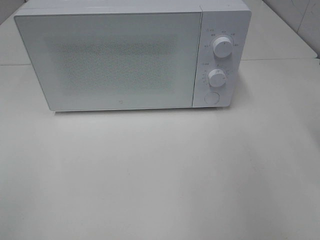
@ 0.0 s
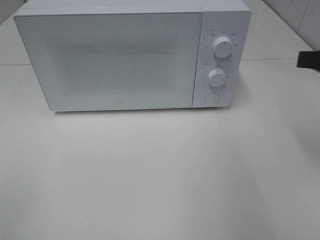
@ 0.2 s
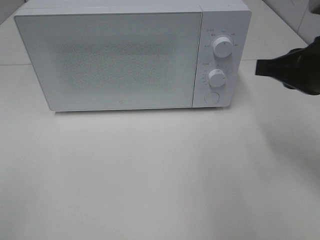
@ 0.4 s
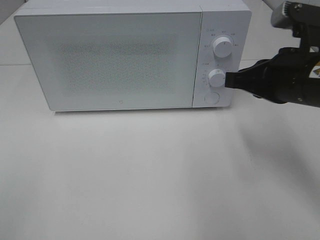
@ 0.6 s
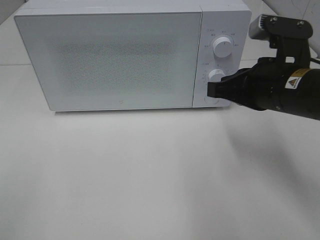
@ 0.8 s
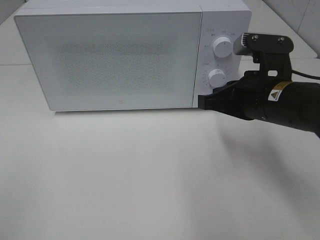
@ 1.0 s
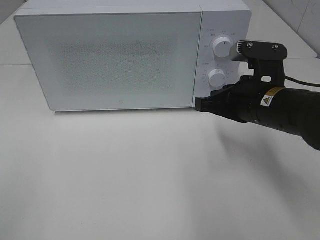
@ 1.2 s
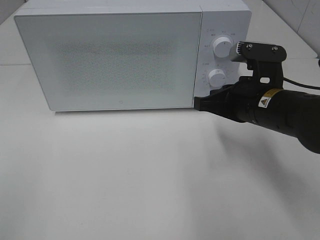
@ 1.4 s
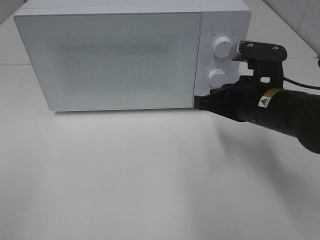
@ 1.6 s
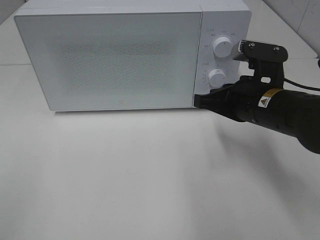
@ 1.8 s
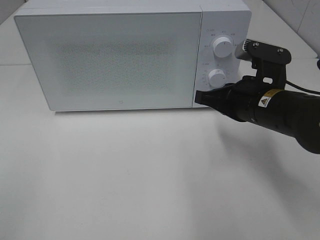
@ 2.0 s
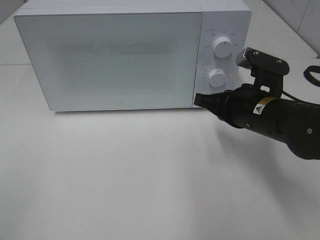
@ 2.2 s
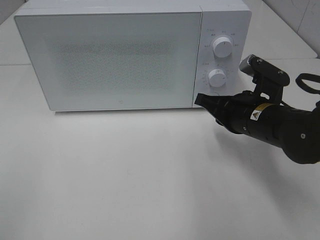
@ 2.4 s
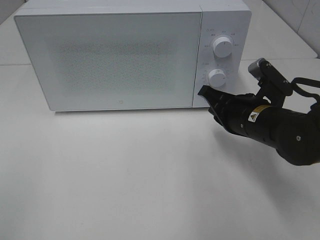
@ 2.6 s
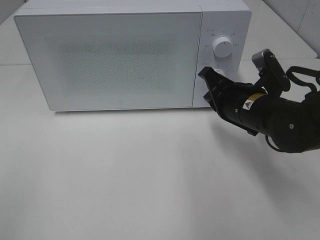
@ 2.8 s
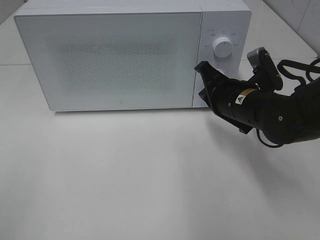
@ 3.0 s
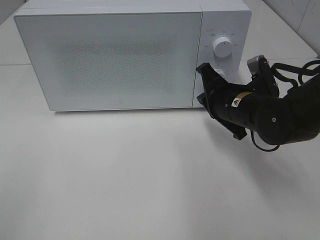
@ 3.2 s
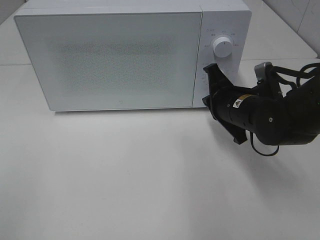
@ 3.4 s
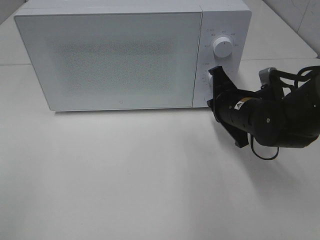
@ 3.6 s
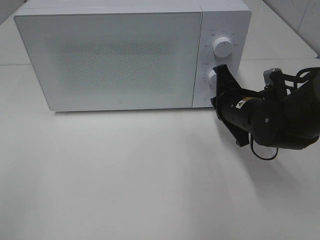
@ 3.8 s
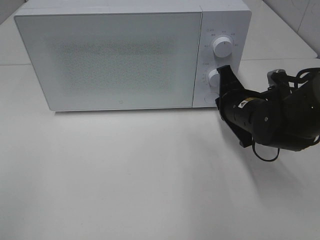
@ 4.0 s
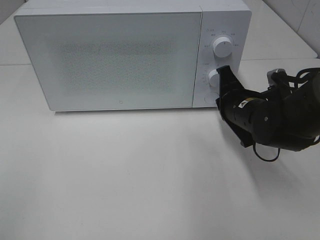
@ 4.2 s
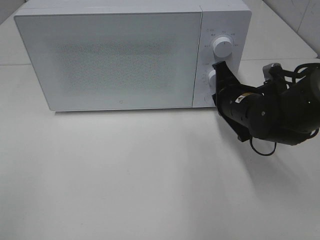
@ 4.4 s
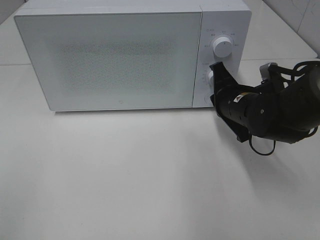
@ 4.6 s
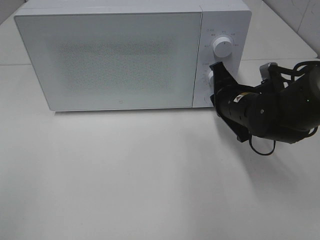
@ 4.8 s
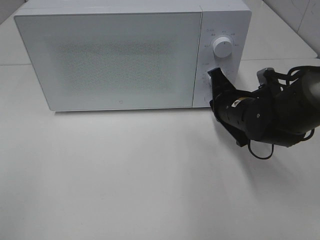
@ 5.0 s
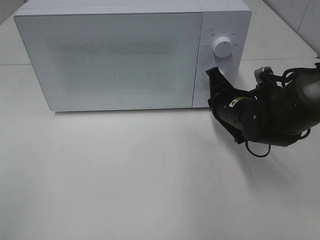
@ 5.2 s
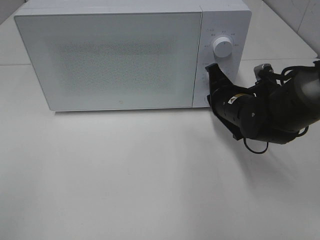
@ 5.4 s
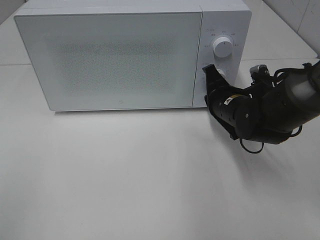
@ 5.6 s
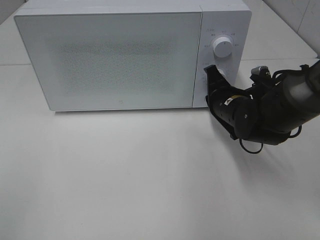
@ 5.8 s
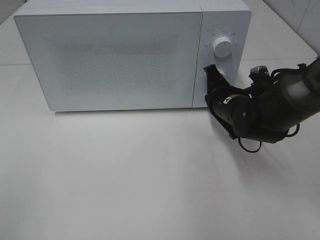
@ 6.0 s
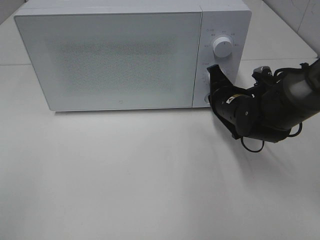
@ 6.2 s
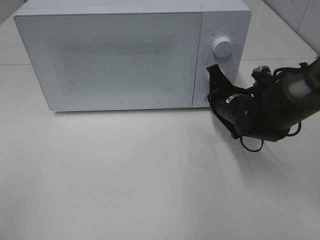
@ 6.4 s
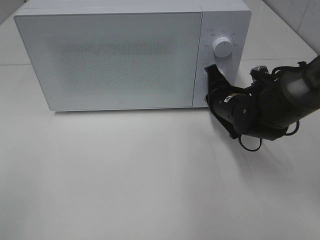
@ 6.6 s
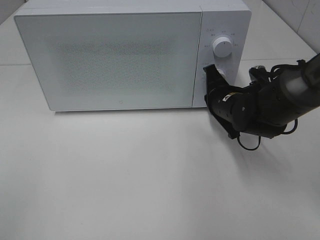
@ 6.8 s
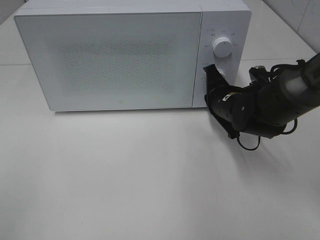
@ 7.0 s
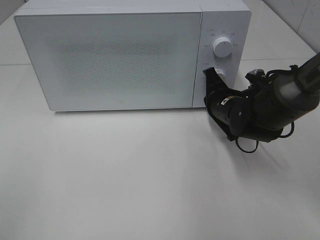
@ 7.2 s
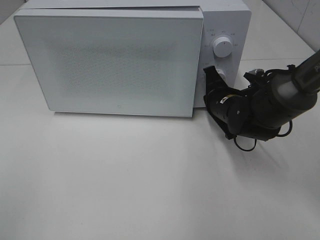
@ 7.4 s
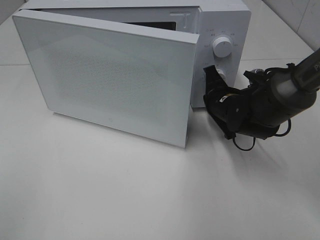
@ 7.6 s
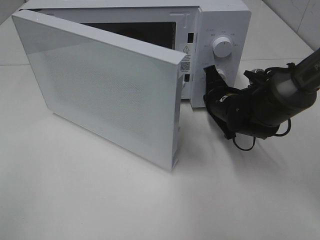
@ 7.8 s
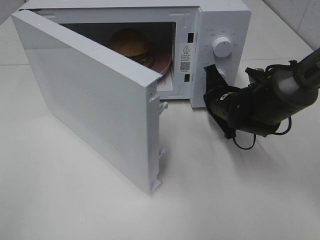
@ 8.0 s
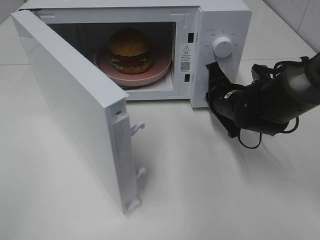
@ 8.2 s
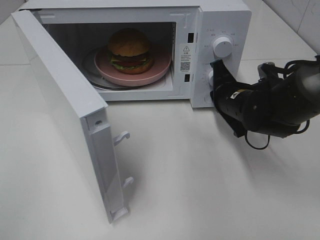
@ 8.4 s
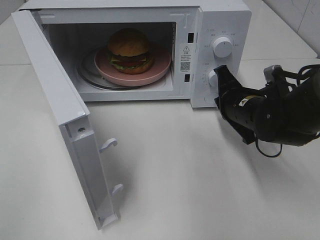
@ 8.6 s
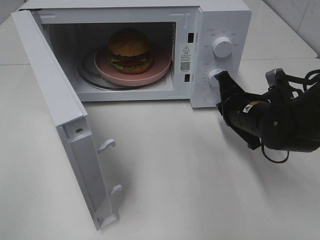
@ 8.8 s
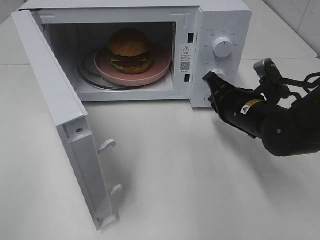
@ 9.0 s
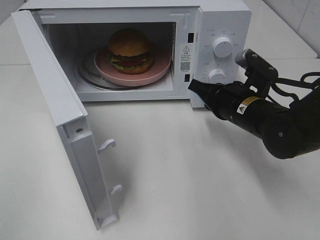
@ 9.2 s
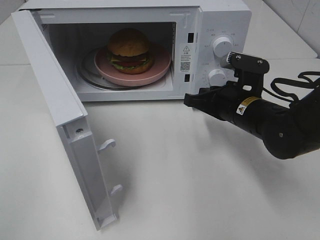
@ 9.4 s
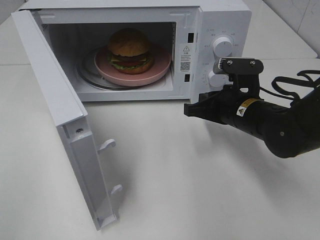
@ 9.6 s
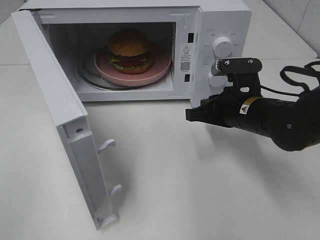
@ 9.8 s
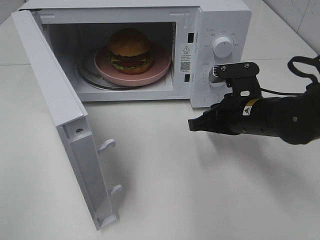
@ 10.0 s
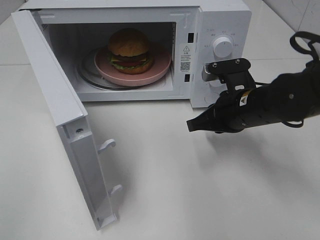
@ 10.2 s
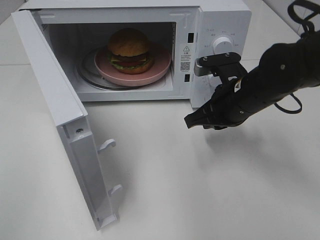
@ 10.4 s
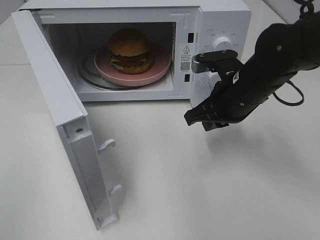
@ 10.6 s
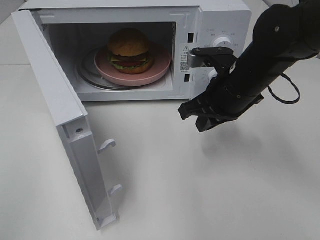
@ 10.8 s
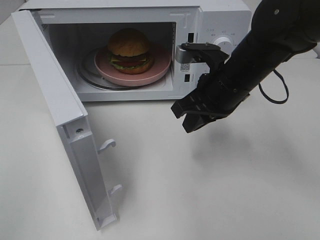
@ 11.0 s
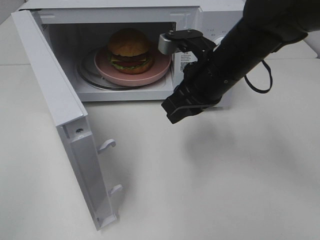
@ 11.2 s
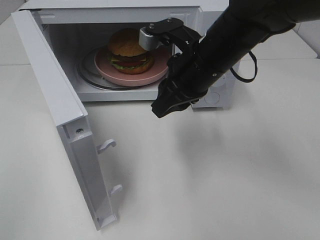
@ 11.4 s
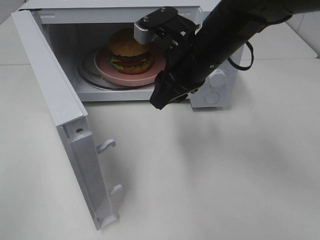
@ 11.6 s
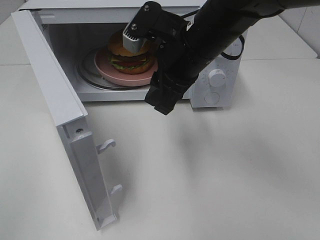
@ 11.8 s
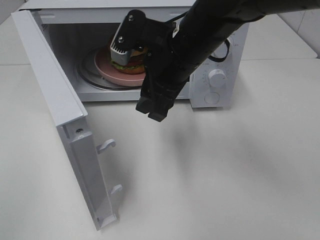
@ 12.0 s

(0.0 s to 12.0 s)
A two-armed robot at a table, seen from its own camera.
Task of the whole recording: Heat the burger.
Step, 0.0 s - 8.4 s: Right hand: press the switch.
0.0 s - 1.6 s: The right gripper shifts about 15 cm to the left and downward.
4.4 s - 7.6 s: There are only small adjustments of the grippers.
7.6 s - 9.0 s: The right gripper moves backward, roughly 5 cm.
10.4 s - 12.0 s: The right gripper goes some 15 cm to the left and upward, and opens up.

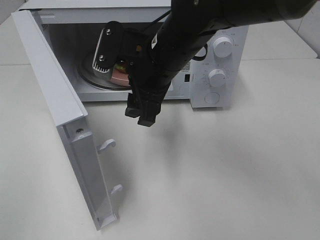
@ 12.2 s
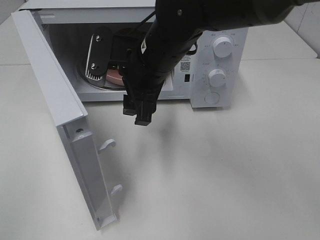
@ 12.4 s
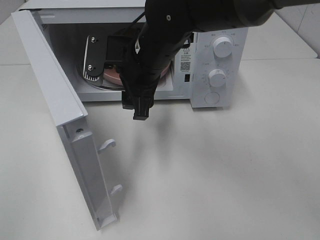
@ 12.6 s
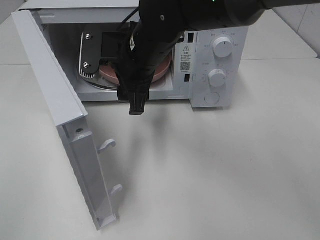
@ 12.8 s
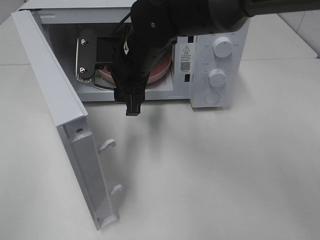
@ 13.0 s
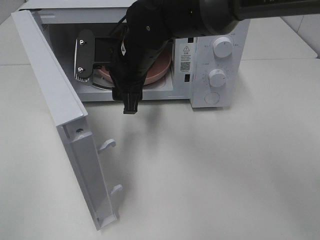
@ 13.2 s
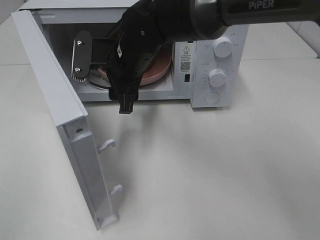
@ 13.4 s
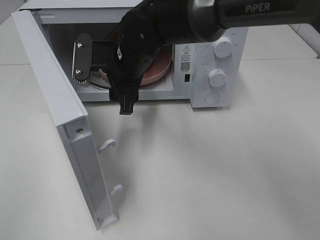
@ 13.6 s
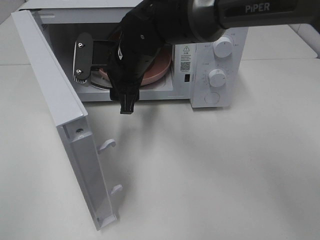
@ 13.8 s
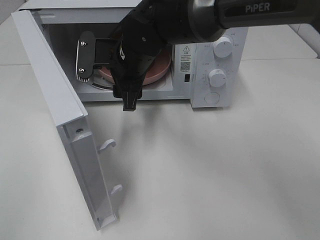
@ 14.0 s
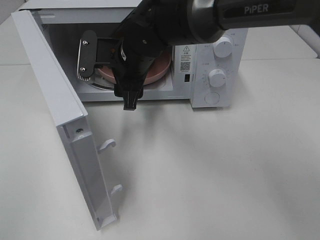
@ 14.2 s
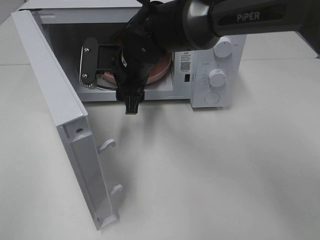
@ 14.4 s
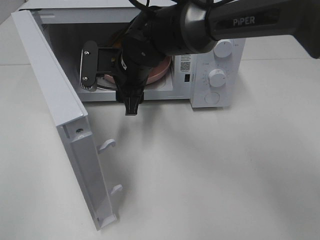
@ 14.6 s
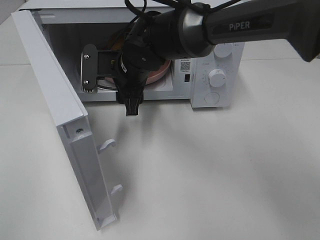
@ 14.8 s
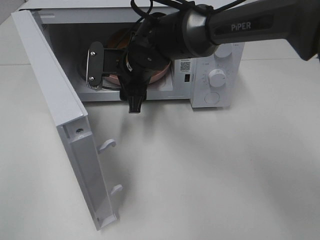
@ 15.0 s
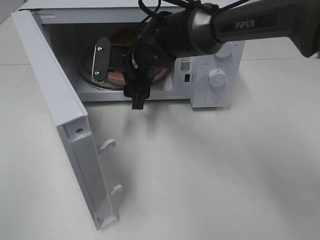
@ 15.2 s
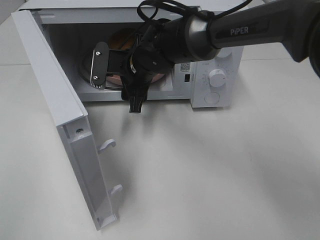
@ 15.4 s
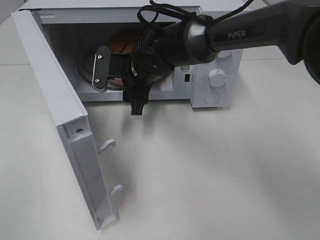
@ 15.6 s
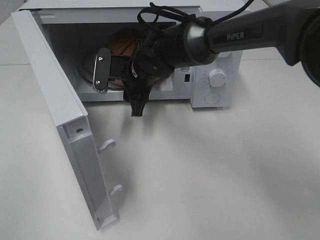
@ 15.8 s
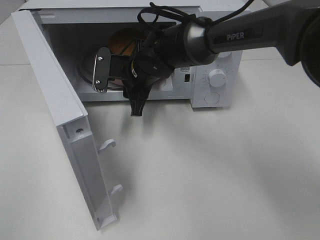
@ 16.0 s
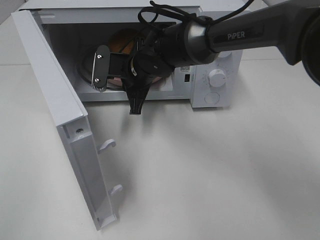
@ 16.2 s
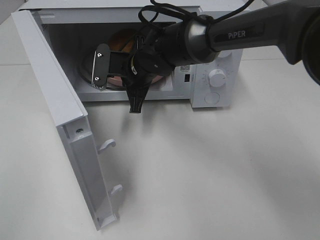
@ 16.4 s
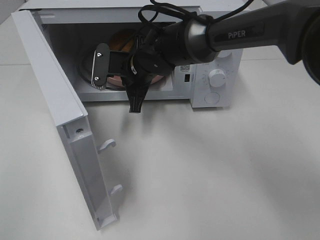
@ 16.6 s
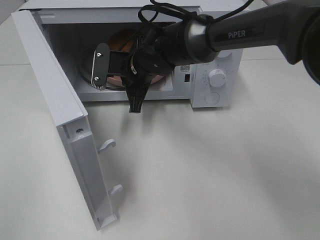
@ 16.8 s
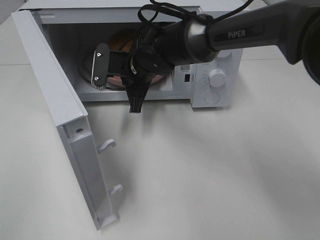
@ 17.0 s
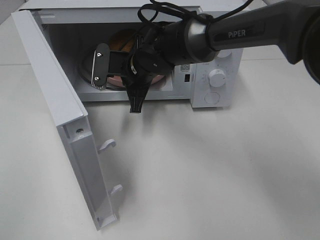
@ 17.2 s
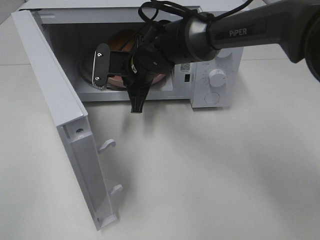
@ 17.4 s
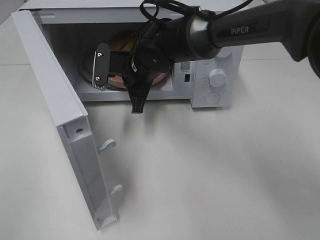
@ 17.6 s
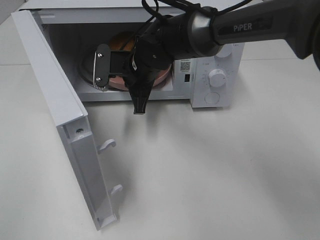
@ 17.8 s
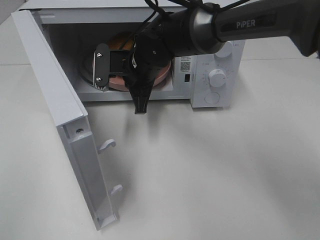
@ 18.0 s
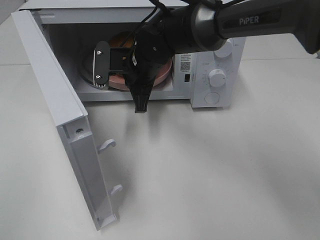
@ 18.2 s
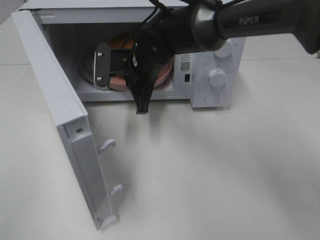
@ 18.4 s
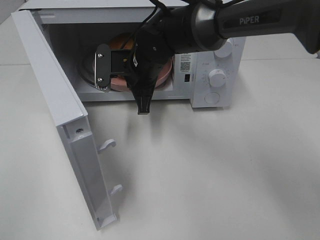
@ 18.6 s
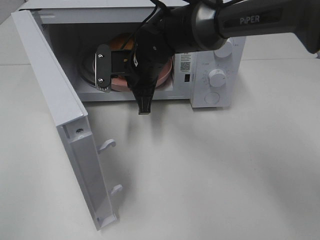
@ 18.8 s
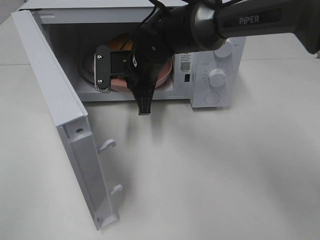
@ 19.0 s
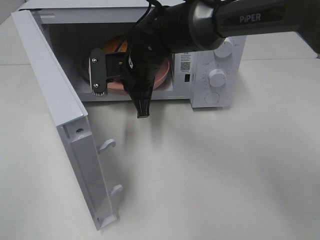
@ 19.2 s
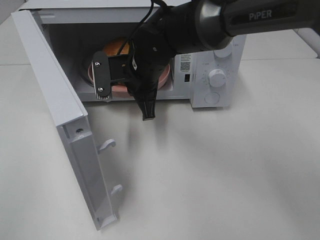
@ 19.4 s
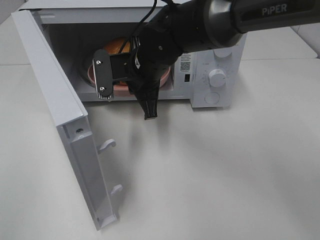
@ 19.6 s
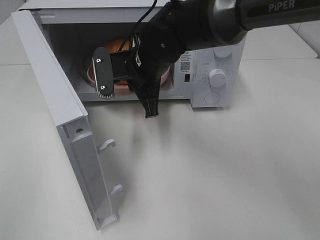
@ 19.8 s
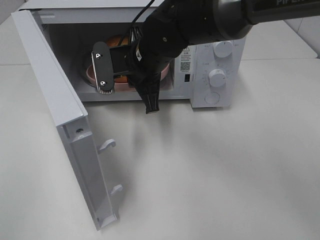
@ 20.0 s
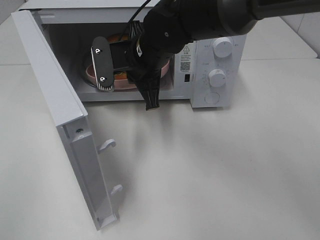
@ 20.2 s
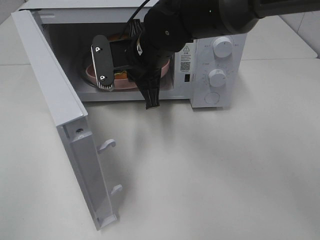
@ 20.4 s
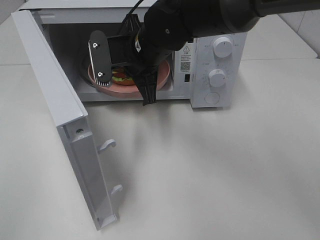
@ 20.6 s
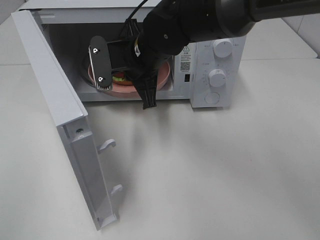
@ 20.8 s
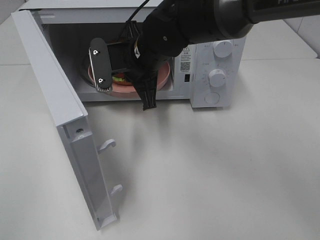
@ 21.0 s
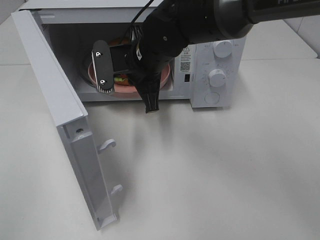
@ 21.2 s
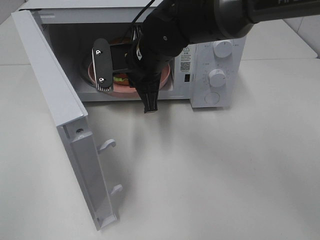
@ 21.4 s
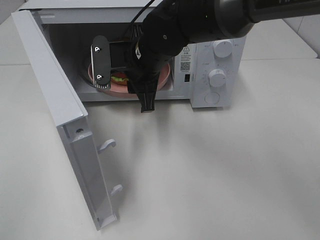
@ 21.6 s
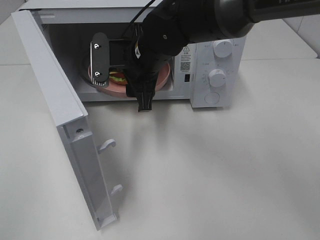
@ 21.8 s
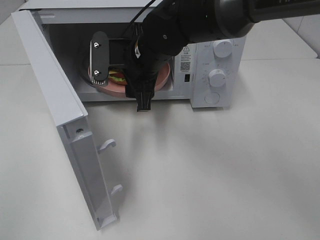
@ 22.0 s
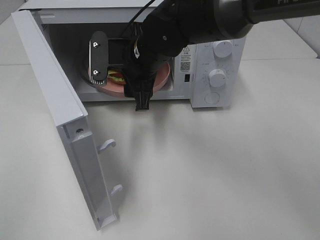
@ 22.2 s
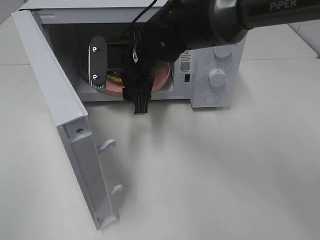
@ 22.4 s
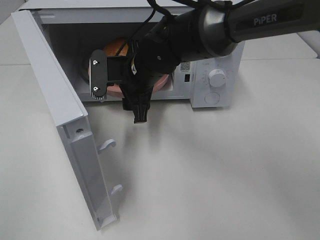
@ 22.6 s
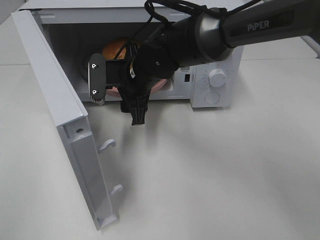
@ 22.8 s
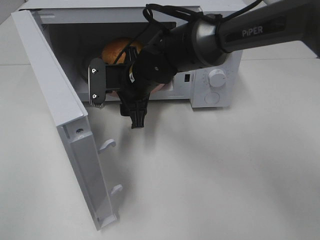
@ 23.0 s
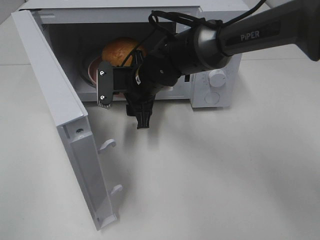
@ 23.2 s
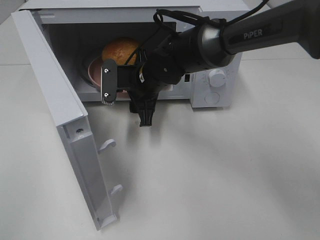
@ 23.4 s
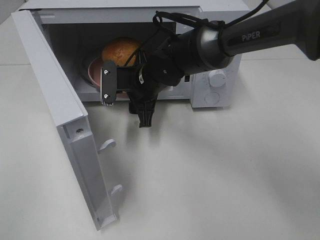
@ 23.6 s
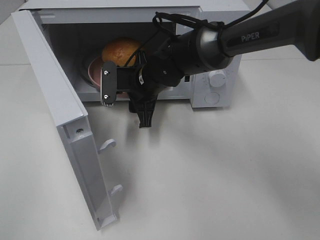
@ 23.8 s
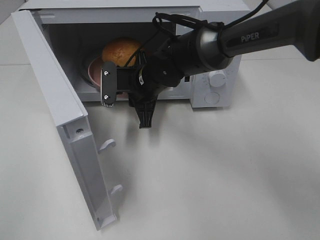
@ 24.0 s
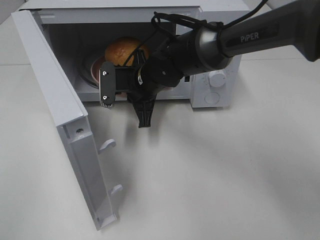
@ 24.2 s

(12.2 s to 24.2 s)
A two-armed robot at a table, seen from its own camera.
Task of the whole recording: Heat the burger.
Step, 12.2 s - 24.2 s: Right hand: grab the plate with the hamburger.
12.2 s - 13.8 s: The right gripper is displaced to the left by approximately 5 cm.
13.8 s - 15.2 s: The grippers stay close to where they were, moving slightly.
15.2 s - 16.6 s: The right gripper closes.
16.6 s - 19.8 s: There are only small adjustments of the grippers.
19.8 s - 21.2 s: The grippers stay close to where they were, moving slightly.
21.2 s - 22.6 s: The right gripper opens its fingers.
22.6 s - 24.2 s: The right gripper closes up.
